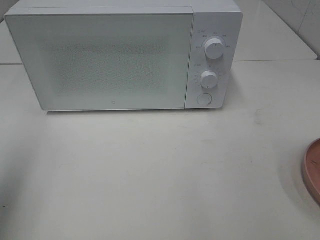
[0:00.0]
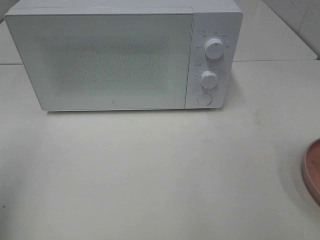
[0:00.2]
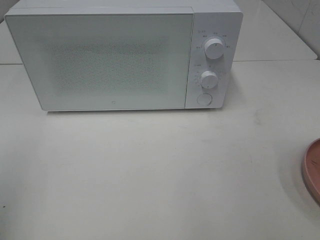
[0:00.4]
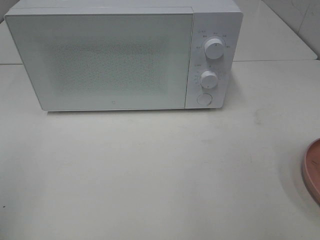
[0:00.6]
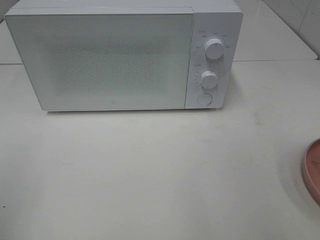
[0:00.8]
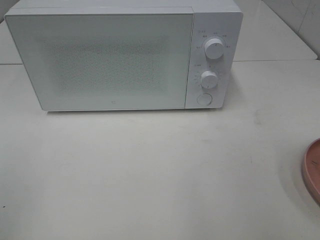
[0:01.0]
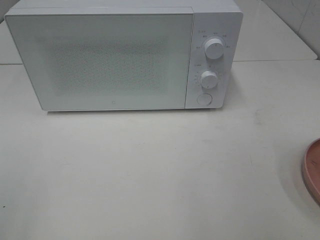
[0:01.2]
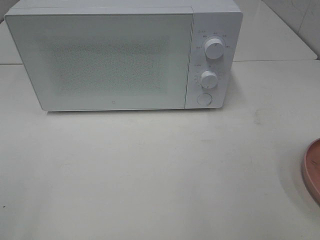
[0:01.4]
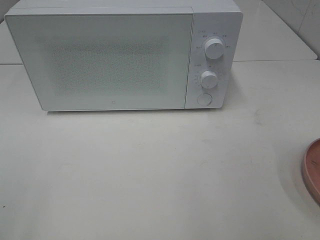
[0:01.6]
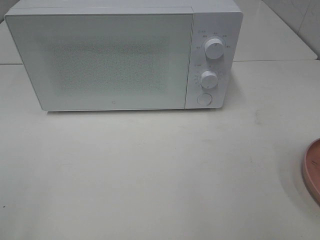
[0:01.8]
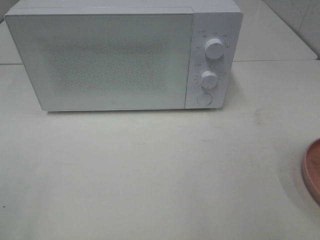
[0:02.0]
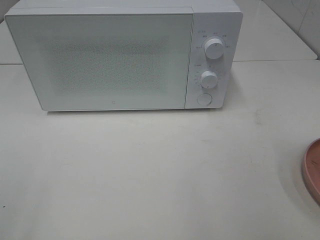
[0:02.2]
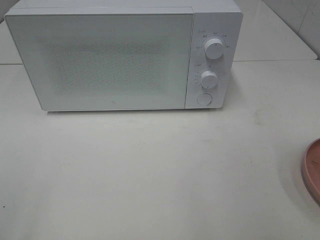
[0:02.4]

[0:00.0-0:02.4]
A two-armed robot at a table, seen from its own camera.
Task of the whole recording: Heat the burger.
0.0 to 1.2 s: The left gripper shifts roughly 15 cm backward.

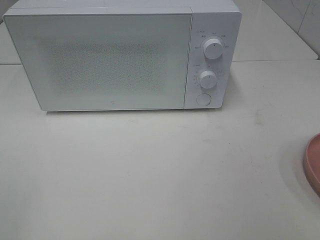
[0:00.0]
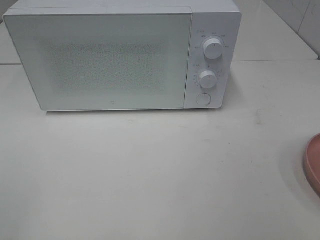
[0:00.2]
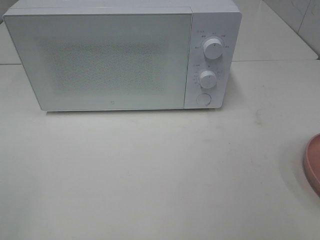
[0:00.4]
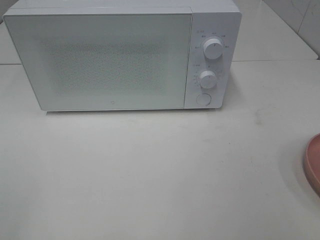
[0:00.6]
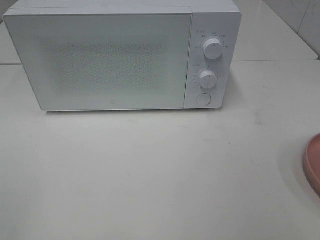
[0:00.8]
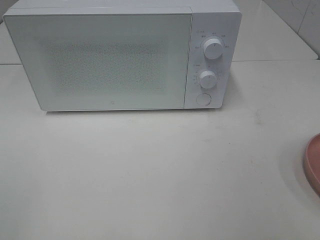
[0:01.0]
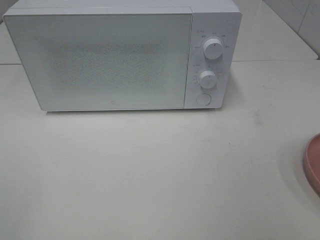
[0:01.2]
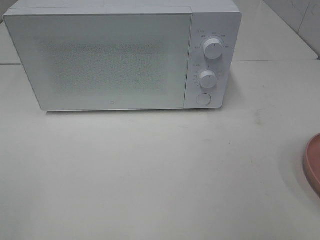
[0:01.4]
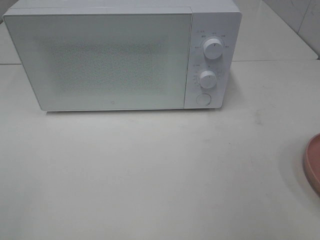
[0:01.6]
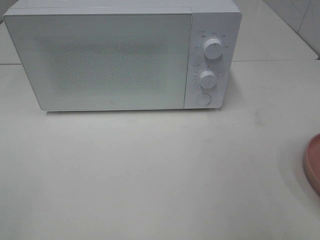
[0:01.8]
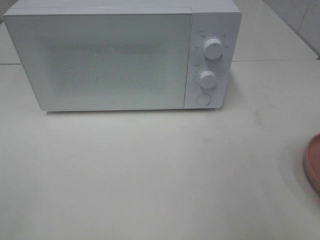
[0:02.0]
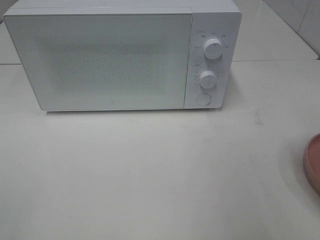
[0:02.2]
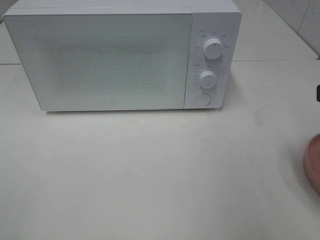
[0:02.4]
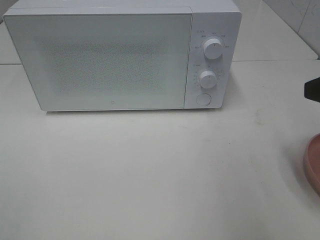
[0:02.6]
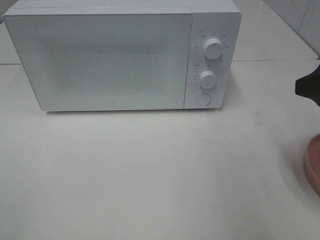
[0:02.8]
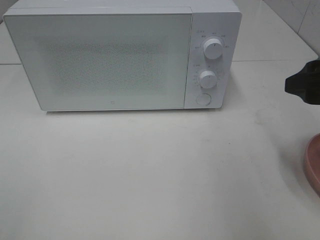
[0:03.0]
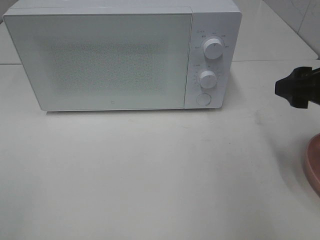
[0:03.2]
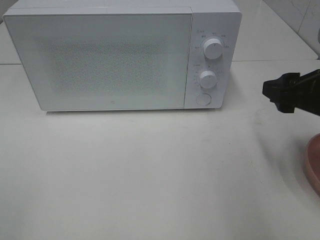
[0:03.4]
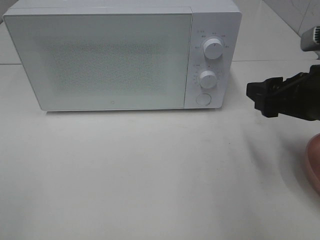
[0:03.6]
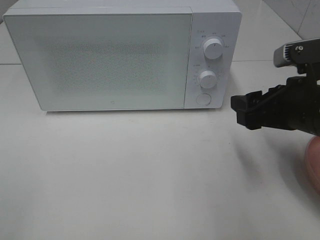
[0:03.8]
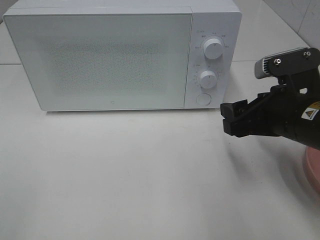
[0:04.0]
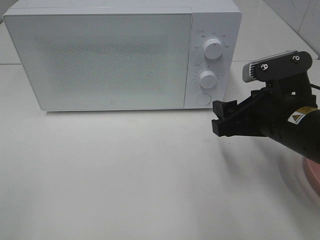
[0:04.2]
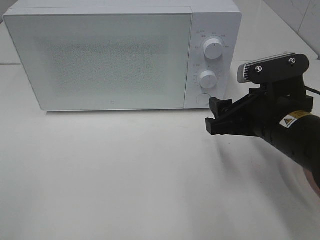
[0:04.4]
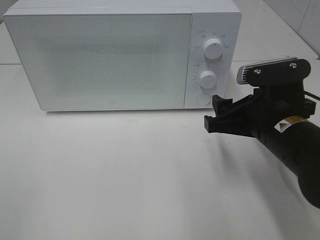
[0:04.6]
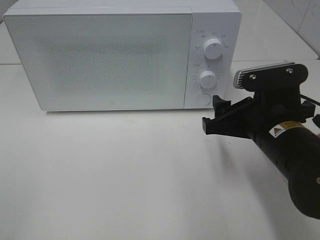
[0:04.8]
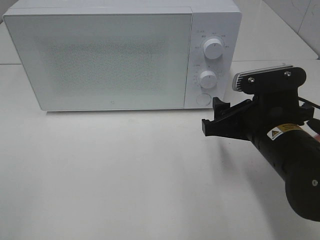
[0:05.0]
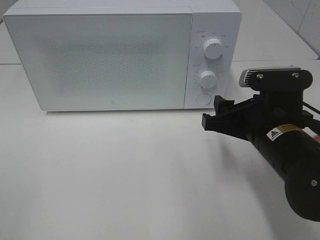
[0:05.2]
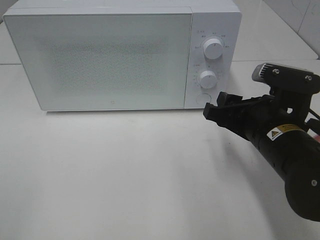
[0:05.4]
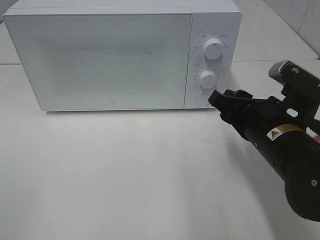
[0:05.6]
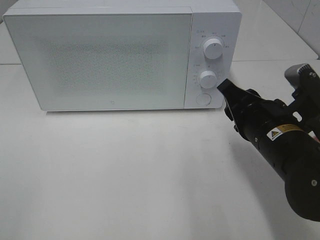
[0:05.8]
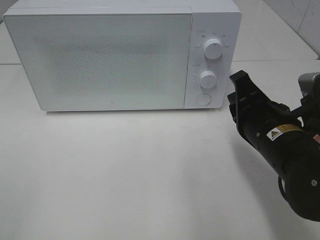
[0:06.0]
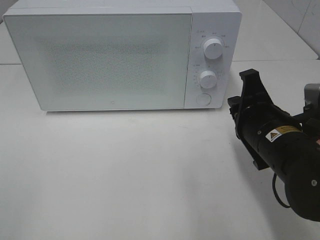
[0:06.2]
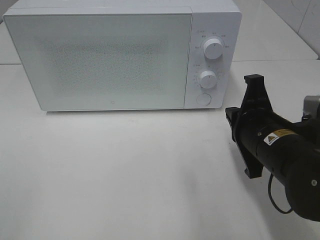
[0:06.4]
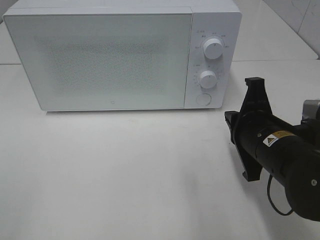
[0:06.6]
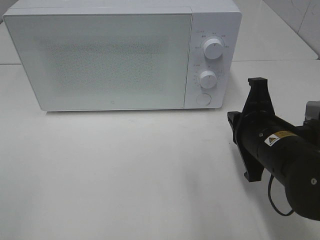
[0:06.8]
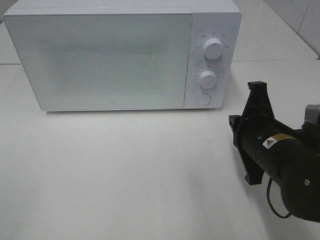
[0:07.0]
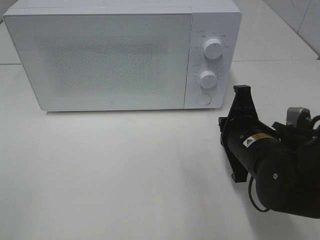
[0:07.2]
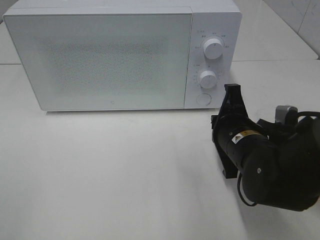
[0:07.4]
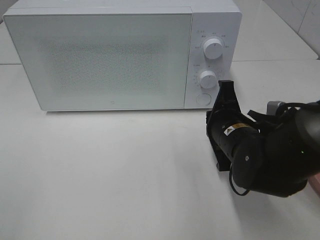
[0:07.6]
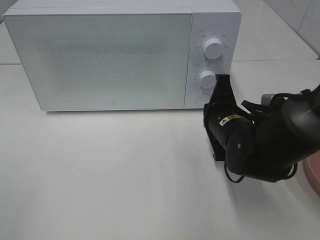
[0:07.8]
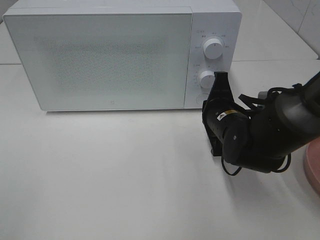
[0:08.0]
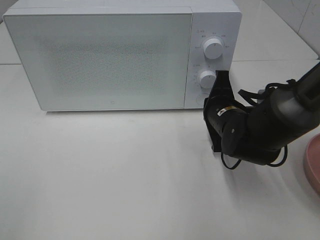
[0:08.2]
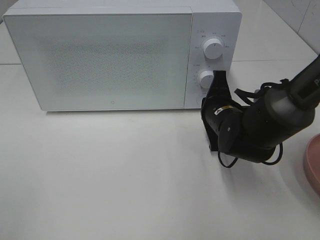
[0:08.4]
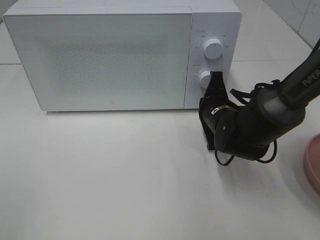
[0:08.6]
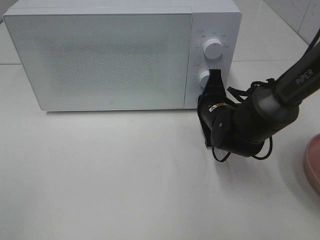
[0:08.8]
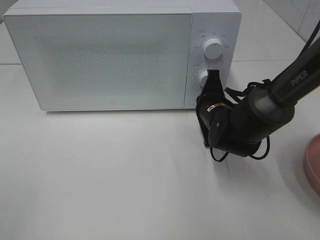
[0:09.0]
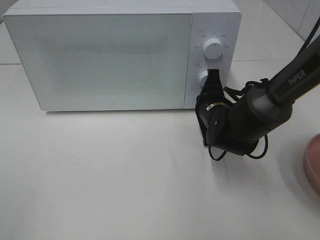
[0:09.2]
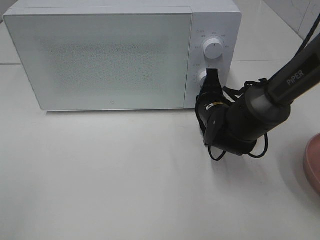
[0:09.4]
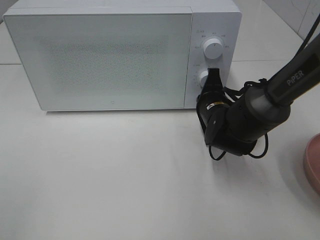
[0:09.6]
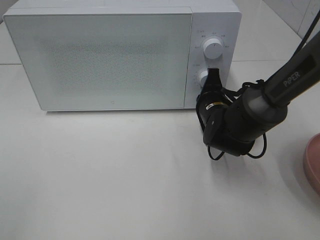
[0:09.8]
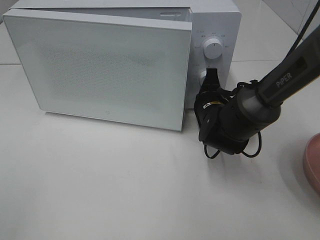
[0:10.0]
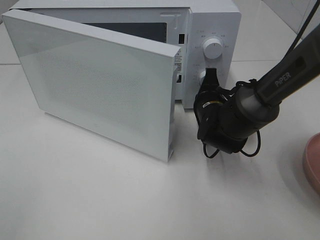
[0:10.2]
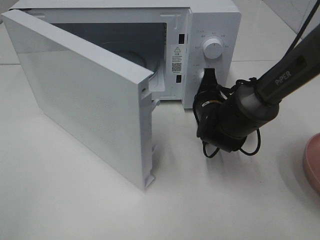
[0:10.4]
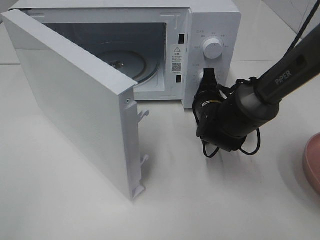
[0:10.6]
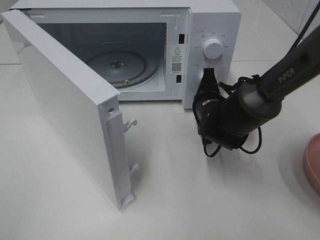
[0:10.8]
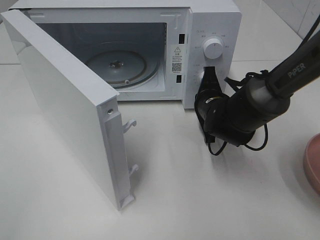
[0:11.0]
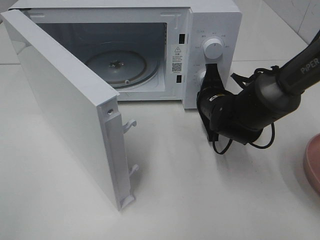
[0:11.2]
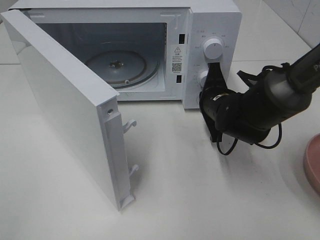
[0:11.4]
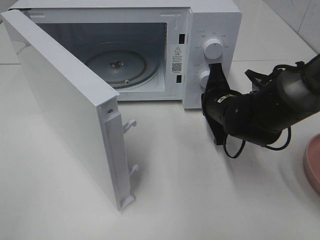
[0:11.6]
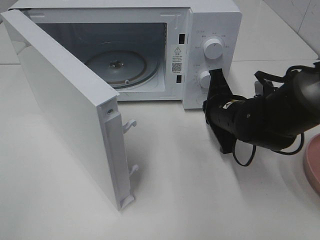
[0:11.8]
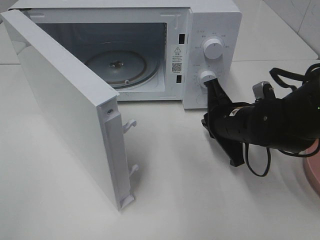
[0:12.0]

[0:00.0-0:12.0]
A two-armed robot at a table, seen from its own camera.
Task of the whole recording: Heat the burger.
Step, 0.0 to 11.4 s: Right hand: press the switch.
1.6 to 3.0 s: The right gripper travels forward by approximately 10 cm.
3.0 to 4.4 s: The right gripper is displaced to the left and downward by roughly 10 cm.
4.4 to 6.0 s: The right gripper closes its fingers.
6.0 to 7.6 s: The right gripper ends up about 5 cm from where it was.
7.6 to 9.0 s: The right gripper shifts approximately 10 cm forward.
10.4 to 12.0 s: The right gripper travels backward by roughly 5 cm.

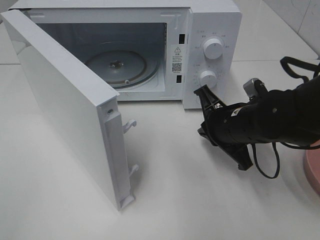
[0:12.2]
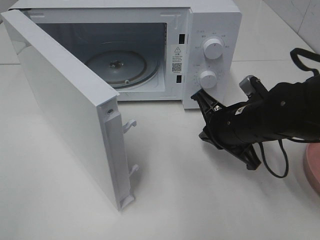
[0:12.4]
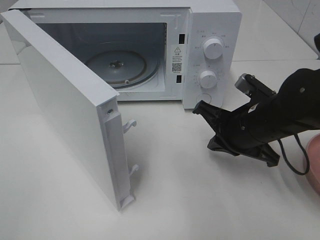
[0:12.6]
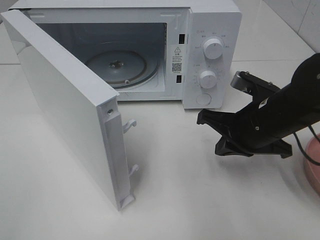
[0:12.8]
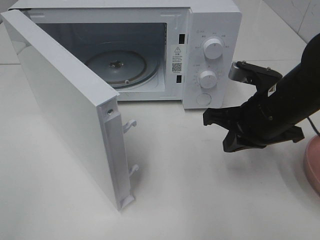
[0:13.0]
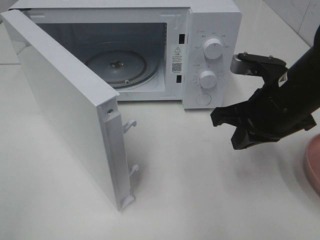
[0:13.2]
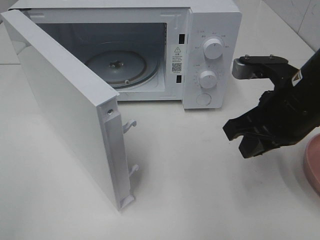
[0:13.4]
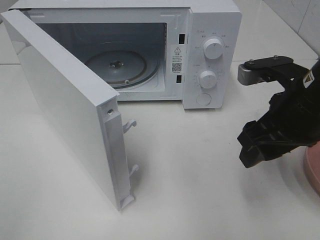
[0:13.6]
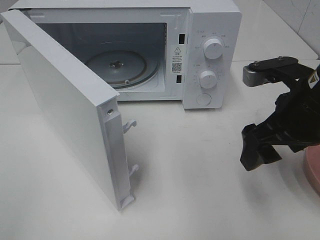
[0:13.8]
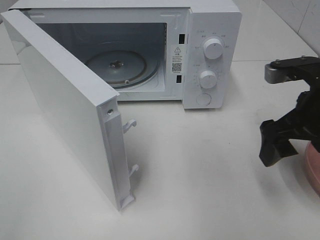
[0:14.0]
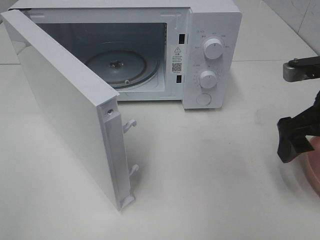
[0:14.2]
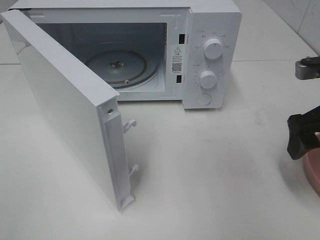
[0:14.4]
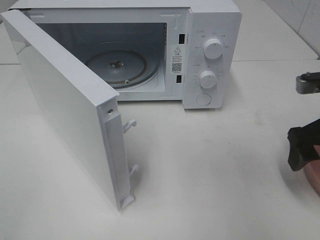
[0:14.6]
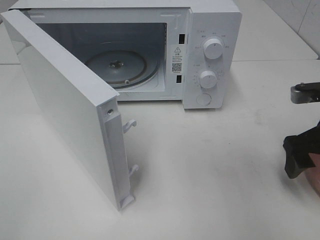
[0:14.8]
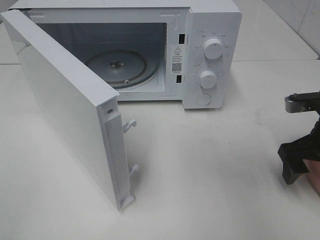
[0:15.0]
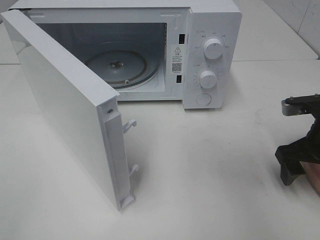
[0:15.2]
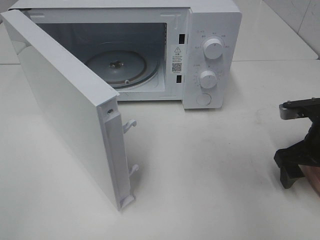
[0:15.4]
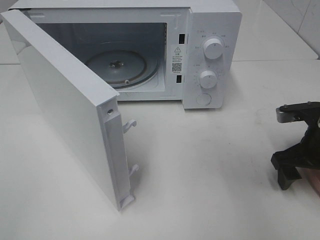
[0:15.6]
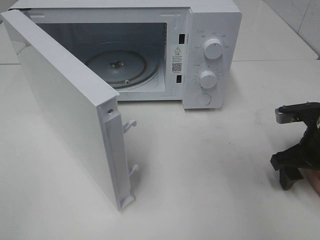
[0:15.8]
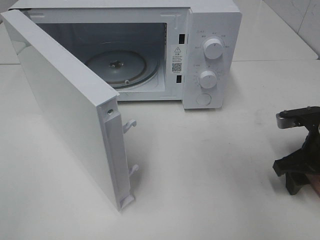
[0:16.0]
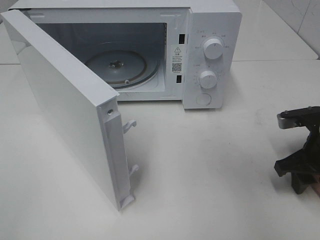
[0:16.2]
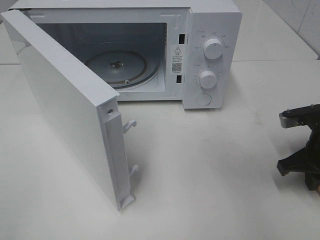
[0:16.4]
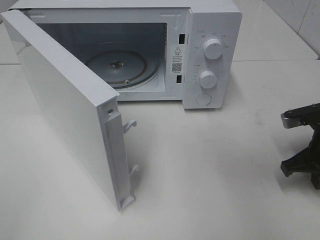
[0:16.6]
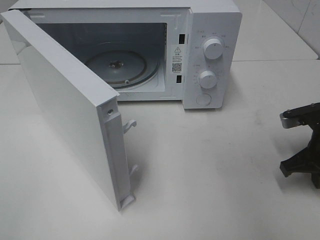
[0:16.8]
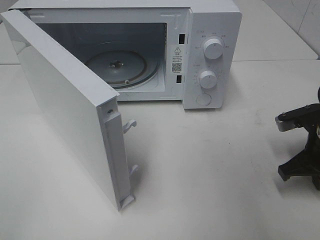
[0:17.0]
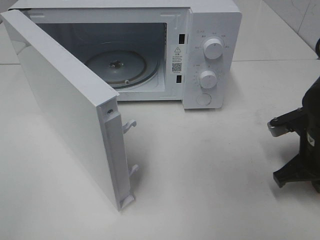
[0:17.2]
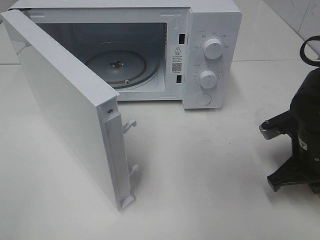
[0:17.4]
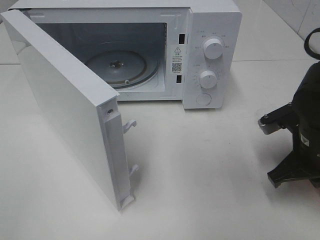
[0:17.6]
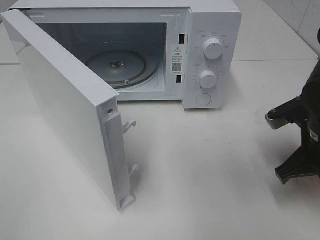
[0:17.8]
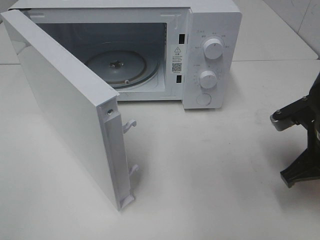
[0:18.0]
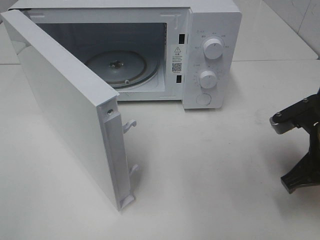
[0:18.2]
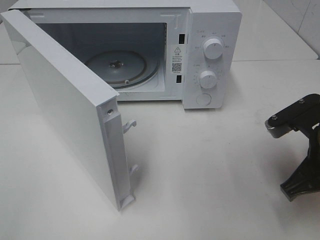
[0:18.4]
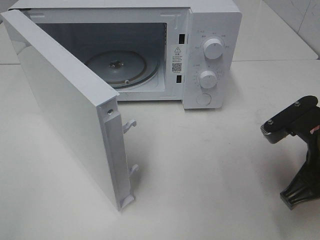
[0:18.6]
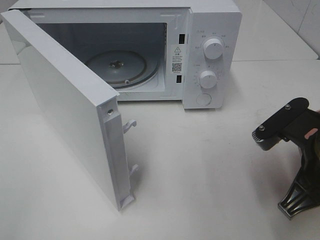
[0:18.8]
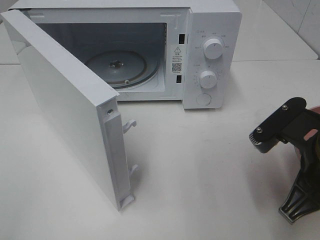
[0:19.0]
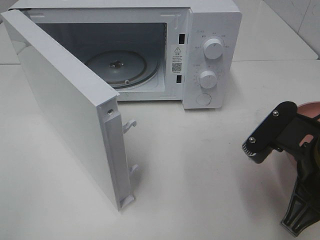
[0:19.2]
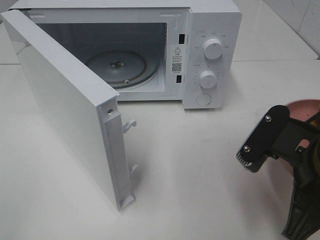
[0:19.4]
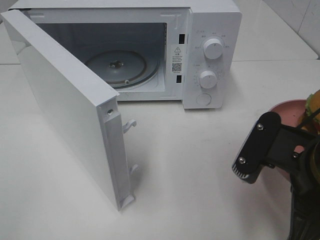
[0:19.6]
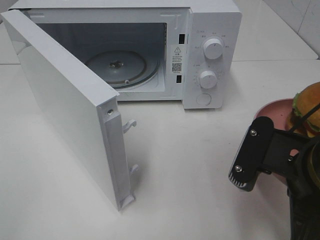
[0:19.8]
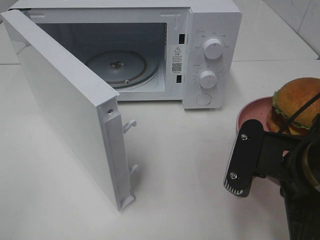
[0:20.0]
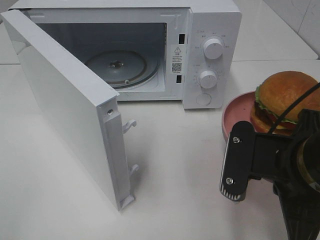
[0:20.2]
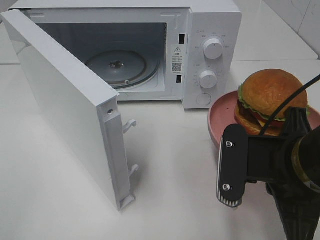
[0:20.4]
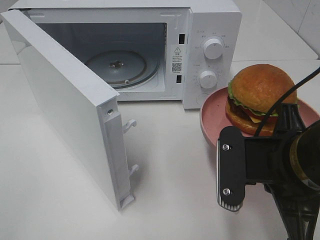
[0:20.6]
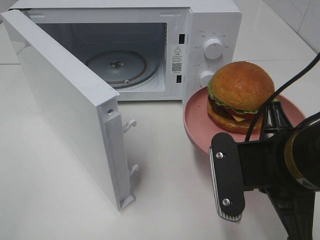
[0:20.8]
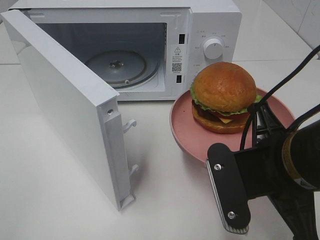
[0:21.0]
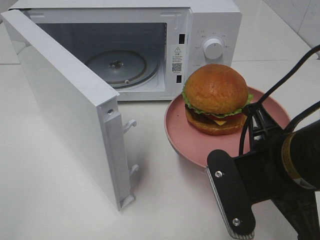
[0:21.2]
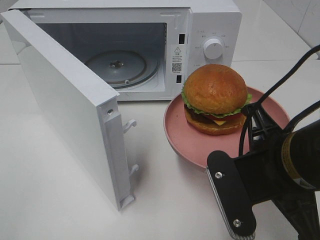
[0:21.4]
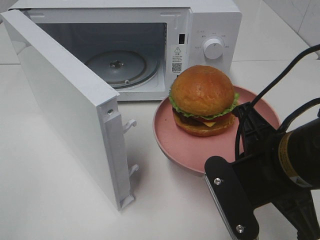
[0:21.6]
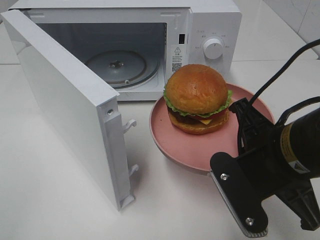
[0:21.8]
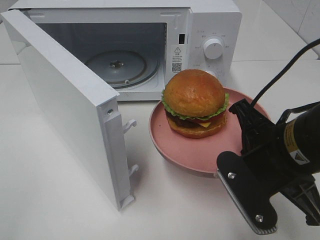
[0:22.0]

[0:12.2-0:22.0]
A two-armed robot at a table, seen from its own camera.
Task of the whole recording: Heat the burger.
Step, 12.2 to 16.6 s: Right hand: grab the plate with the hamburger.
12.2 to 13.6 s: The right gripper travels upward by approximately 10 cm, and opens its fingers.
13.6 to 15.0 s: The right gripper shifts about 10 cm to the right and downward.
15.0 to 16.4 s: The right gripper closes.
16.4 to 17.8 s: The right gripper moves approximately 5 cm.
17.8 to 19.2 s: The right gripper moves backward and to the left, about 10 cm.
